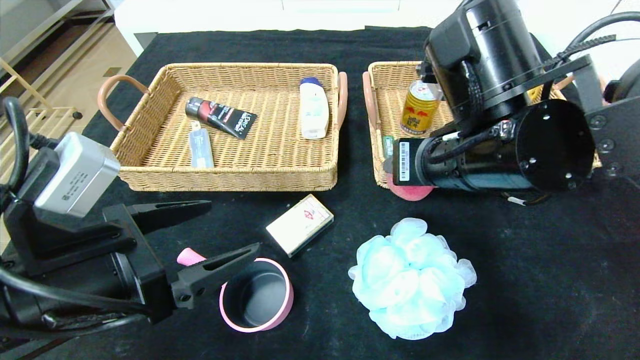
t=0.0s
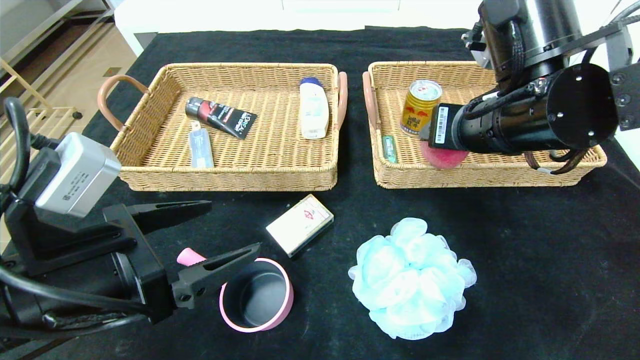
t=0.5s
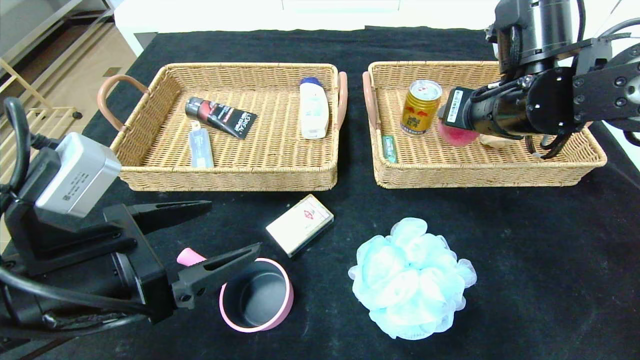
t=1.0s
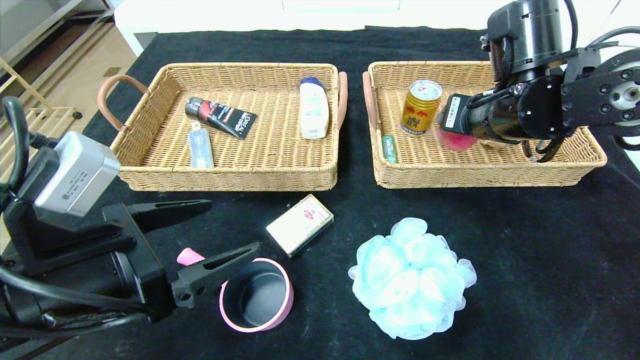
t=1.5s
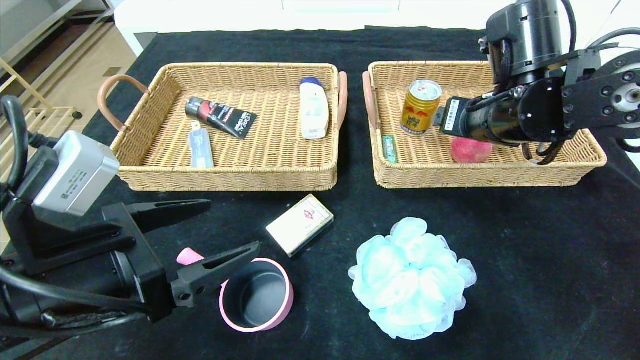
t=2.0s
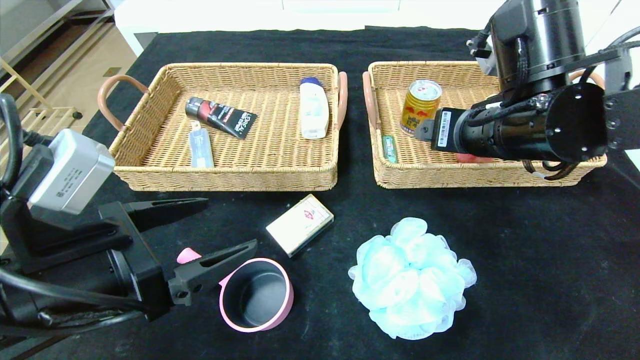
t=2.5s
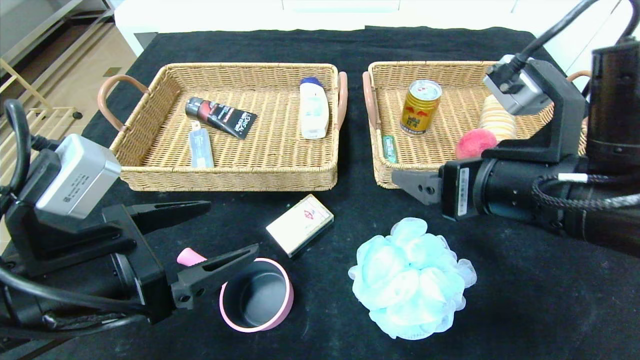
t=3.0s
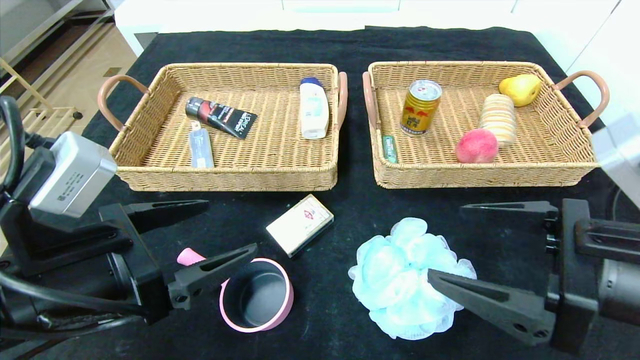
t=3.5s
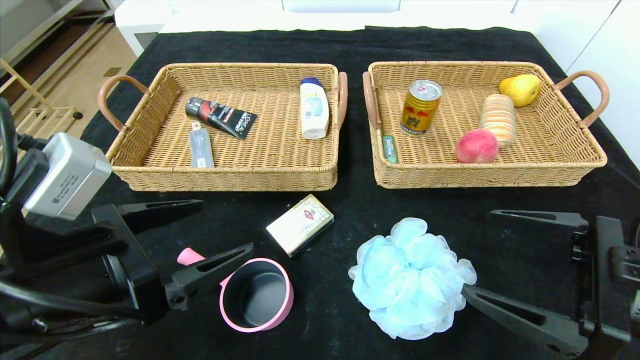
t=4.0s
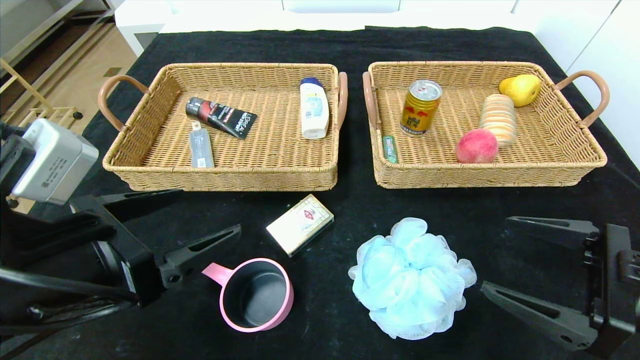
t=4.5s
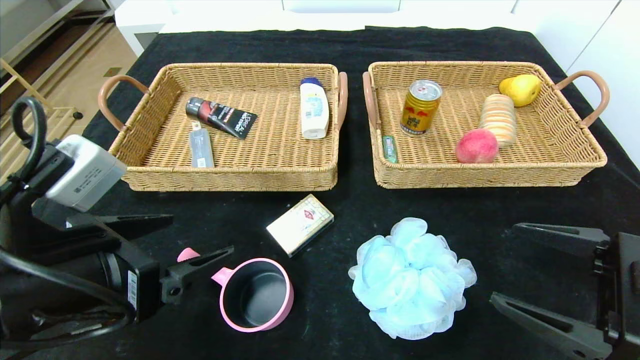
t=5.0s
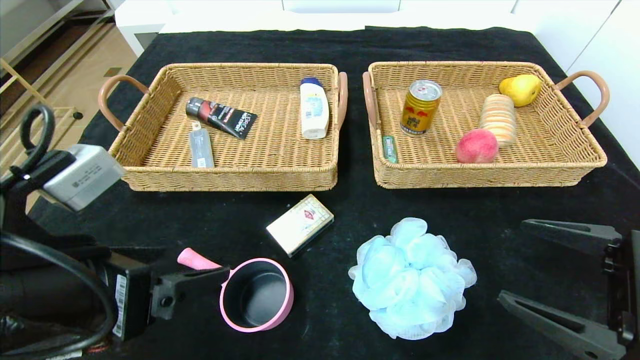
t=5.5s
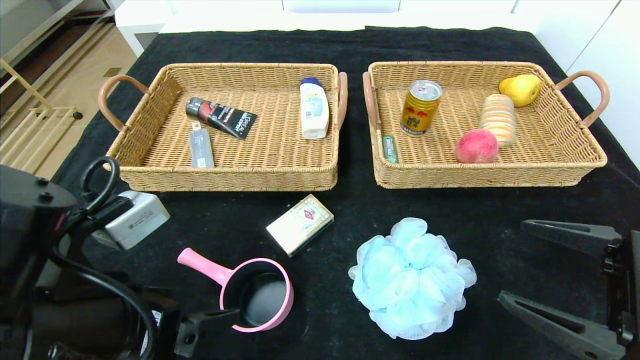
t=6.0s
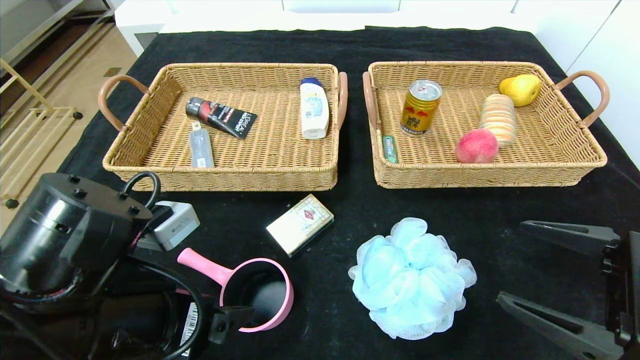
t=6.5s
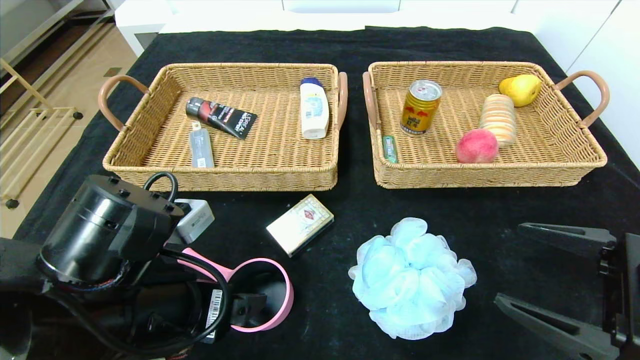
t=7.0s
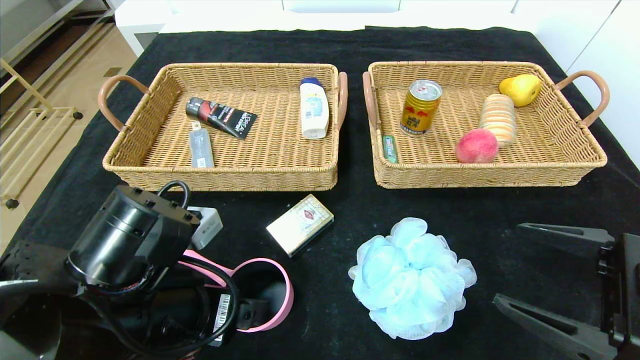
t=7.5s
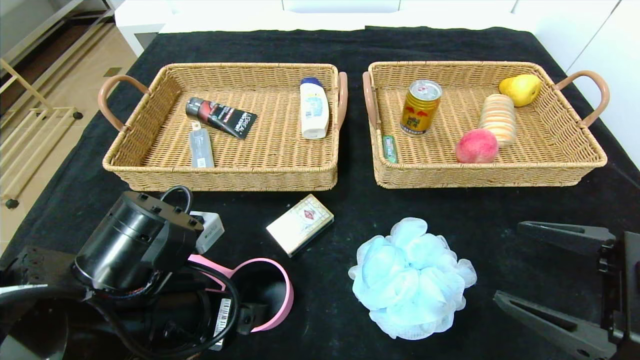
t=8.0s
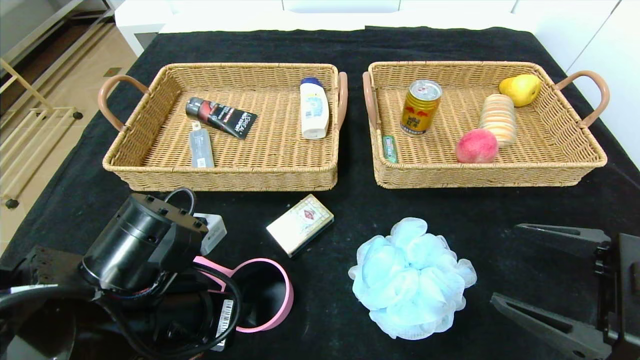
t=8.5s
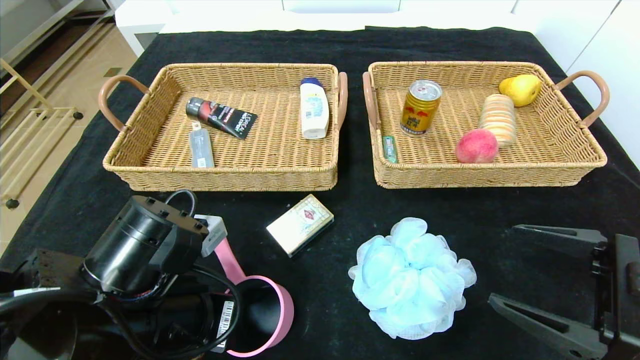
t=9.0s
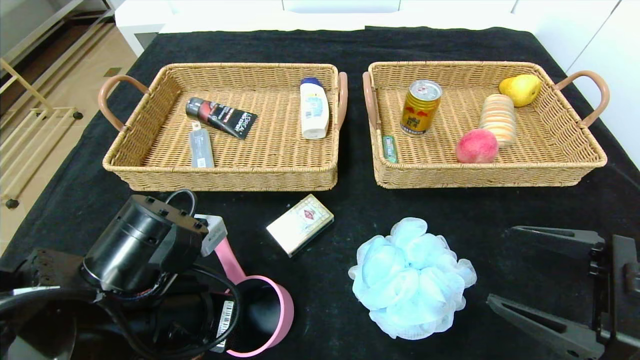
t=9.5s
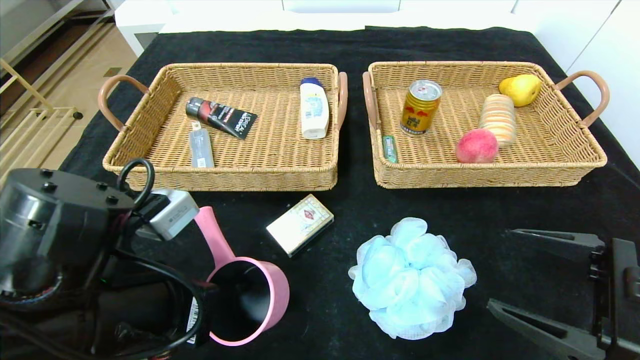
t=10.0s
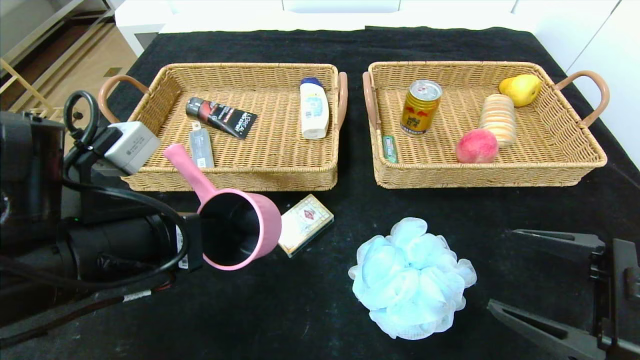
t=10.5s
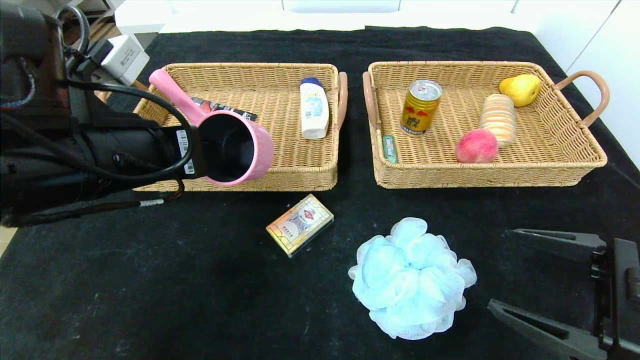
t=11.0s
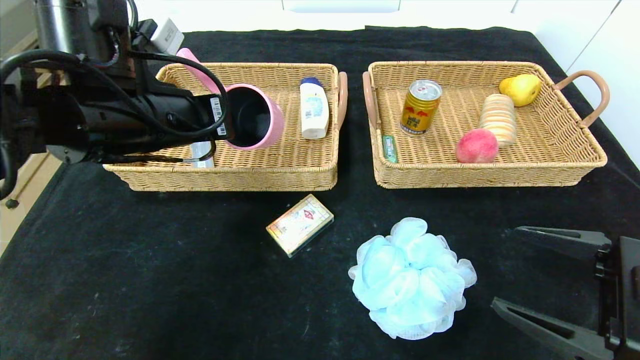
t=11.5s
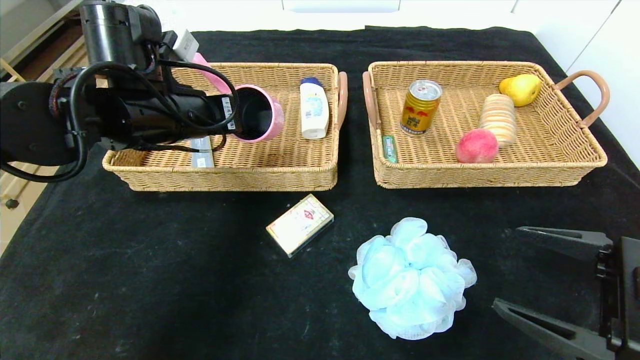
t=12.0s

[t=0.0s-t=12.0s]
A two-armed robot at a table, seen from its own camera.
Step, t=0.0s to t=3.5s: Pick up the peach and put it in the right basket.
t=0.0s to t=2.0s: The right gripper moves forward and to the right, roughly 10 cm.
t=2.0s to t=4.0s: The right gripper travels backward and downward by about 20 cm.
t=6.0s to t=8.0s: The left gripper changes place by roughly 5 cm.
t=8.0s to t=10.0s: The left gripper closes its fingers.
t=10.0s to t=12.0s: The left gripper travels forward and upward by roughly 20 cm.

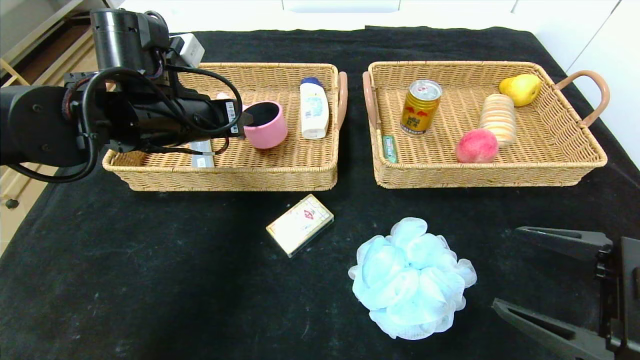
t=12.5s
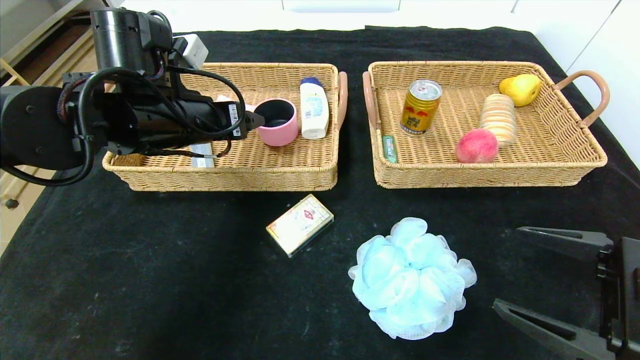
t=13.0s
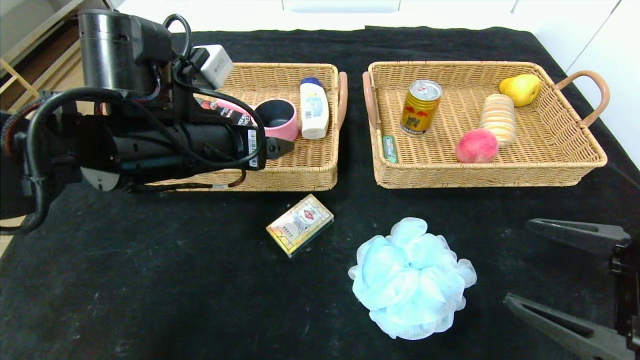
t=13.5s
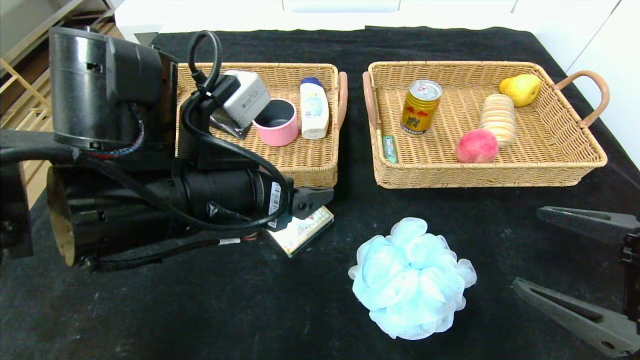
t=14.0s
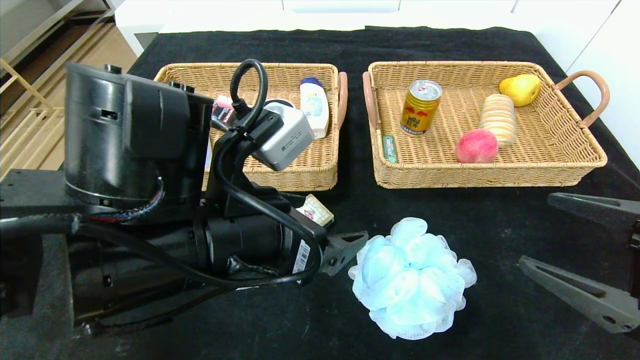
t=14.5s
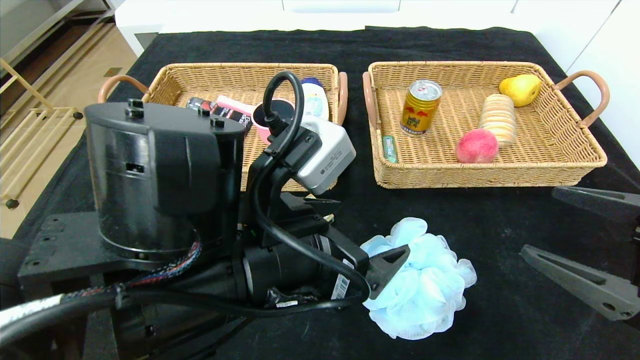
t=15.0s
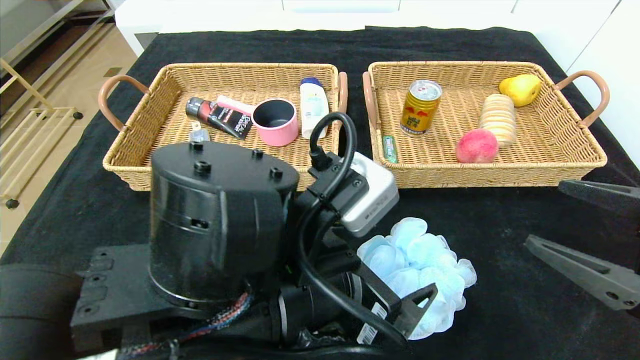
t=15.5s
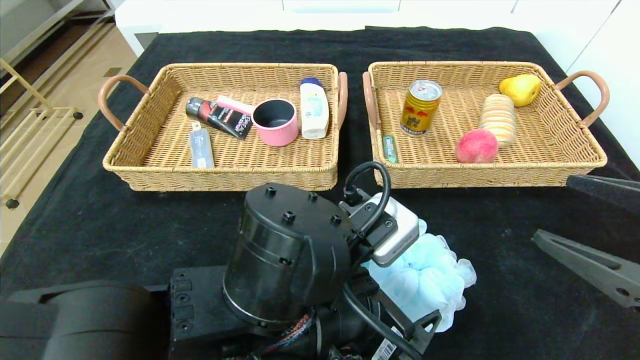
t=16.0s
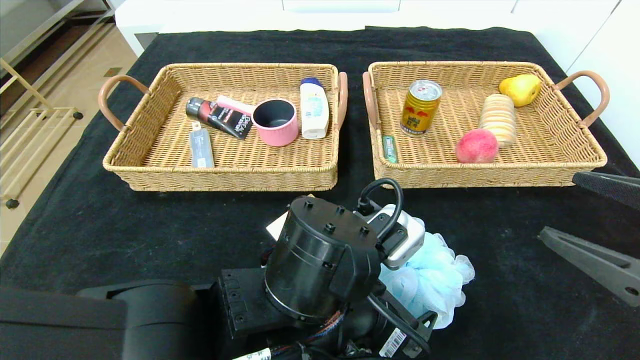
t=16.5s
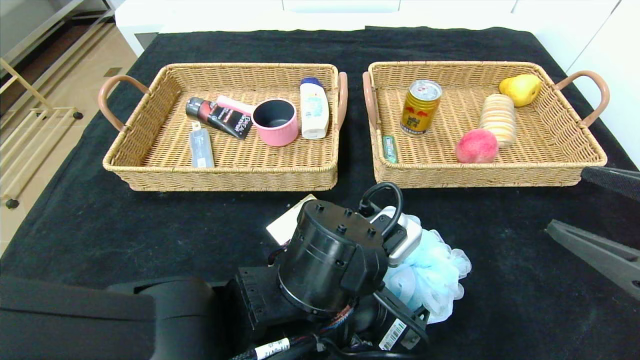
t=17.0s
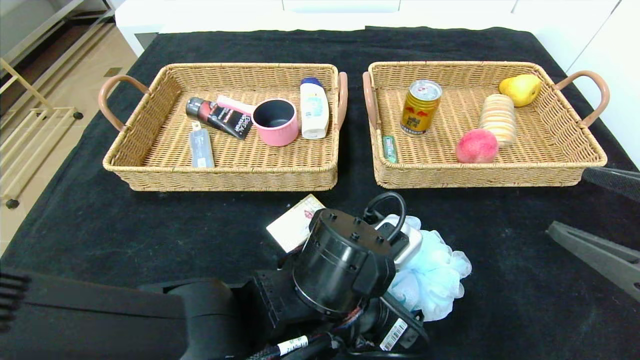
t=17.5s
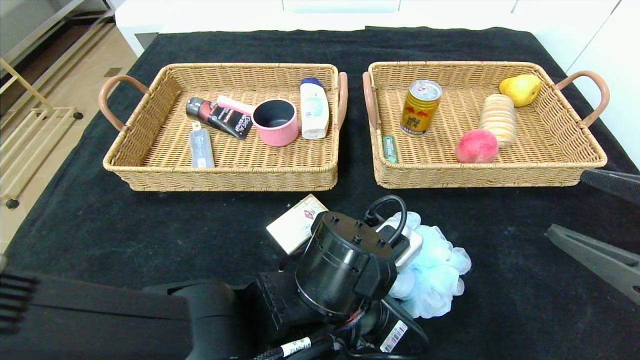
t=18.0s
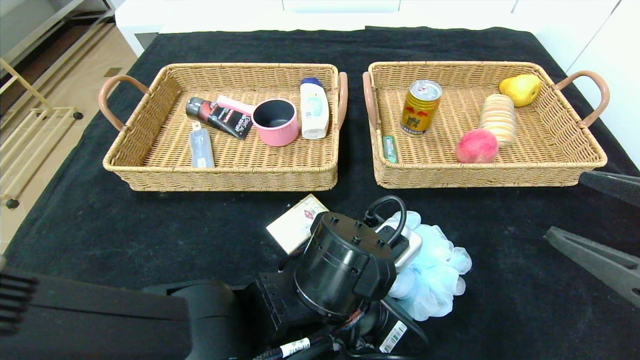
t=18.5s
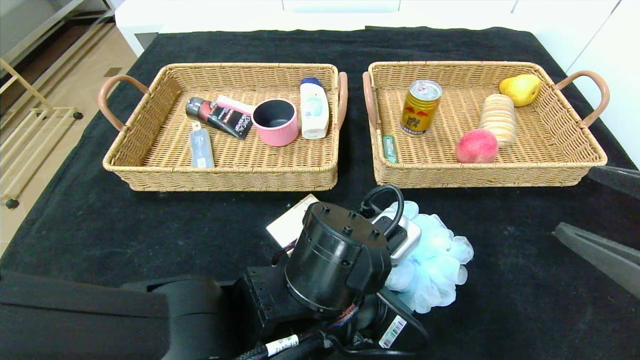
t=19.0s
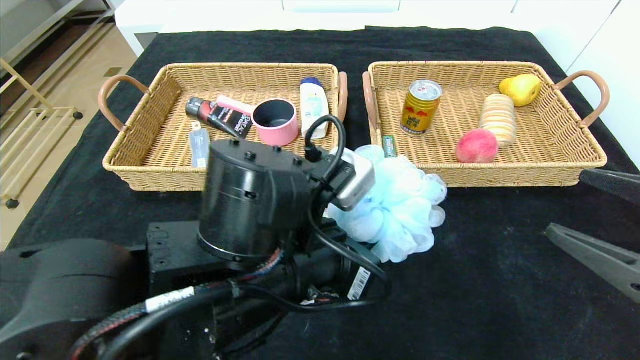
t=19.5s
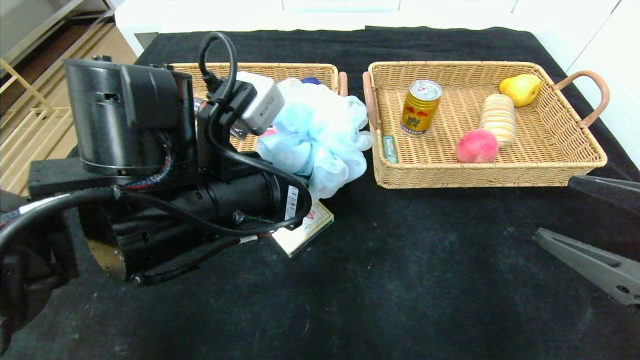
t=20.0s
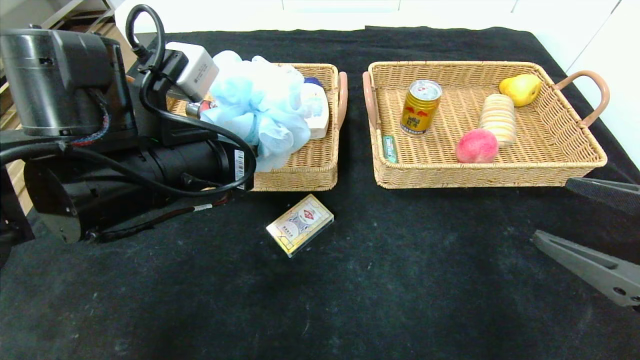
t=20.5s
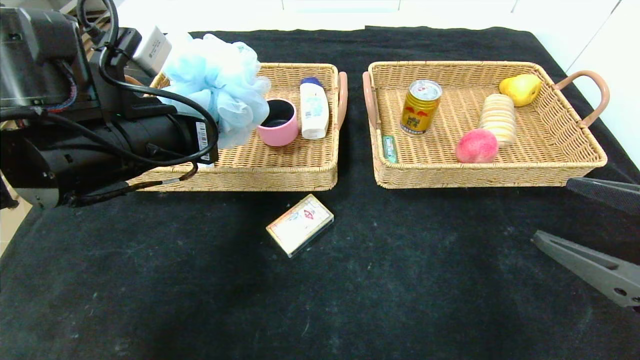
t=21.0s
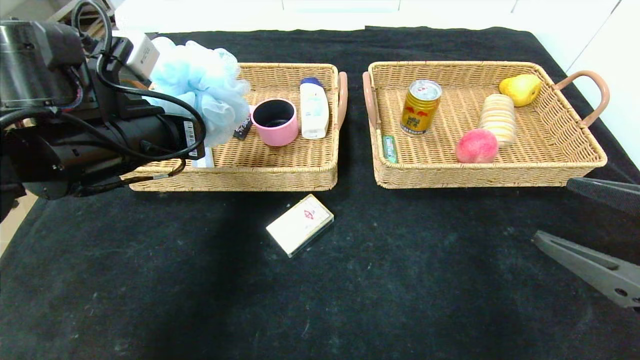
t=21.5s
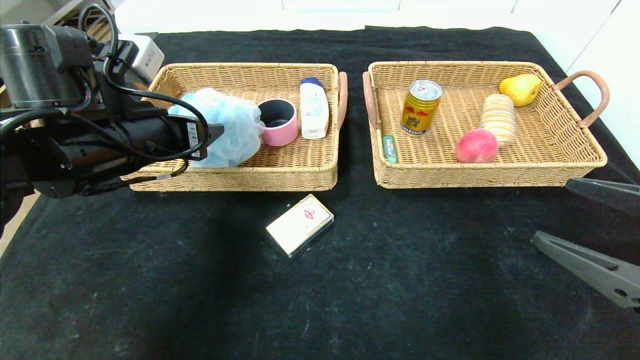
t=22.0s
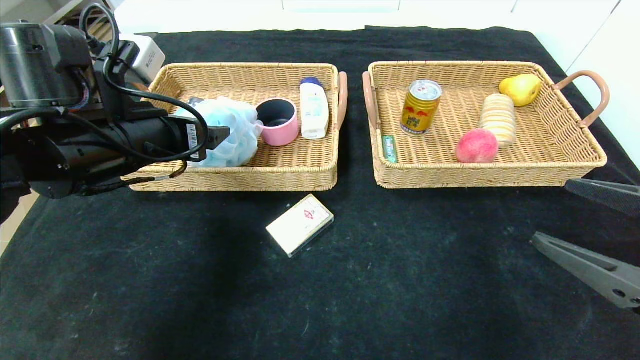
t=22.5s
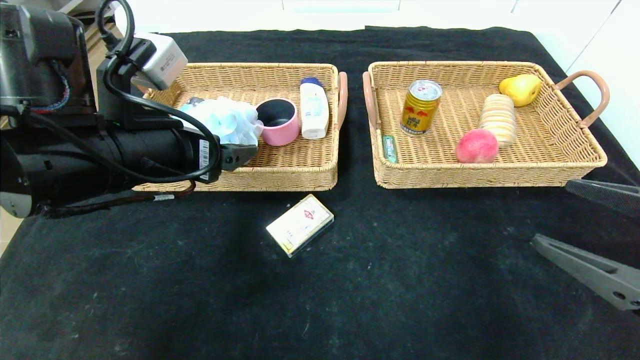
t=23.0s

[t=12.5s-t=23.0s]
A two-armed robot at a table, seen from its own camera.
t=12.5s to t=14.5s: The left gripper is displaced backward and to the right by about 20 cm, and opens.
t=14.5s to t=16.5s: The left gripper travels to the right and downward by some 10 cm.
t=16.5s to t=19.0s: The left gripper closes its fingers.
t=19.0s to t=21.0s: The left gripper is displaced to the left and upward by roughly 20 cm.
t=21.0s to t=23.0s: The left gripper opens its fingers.
